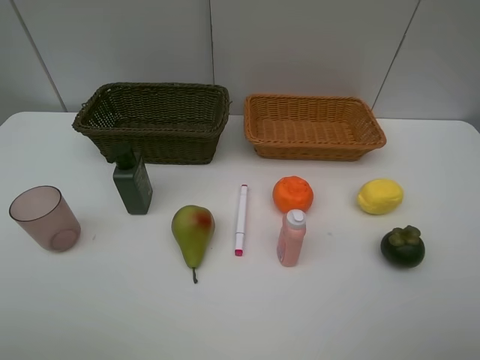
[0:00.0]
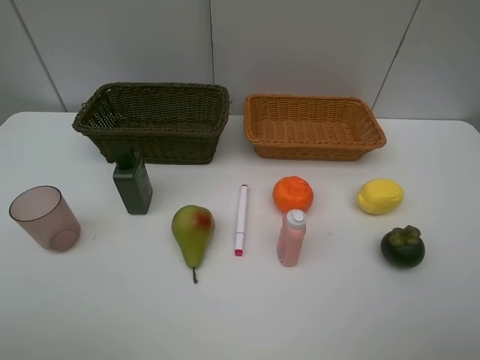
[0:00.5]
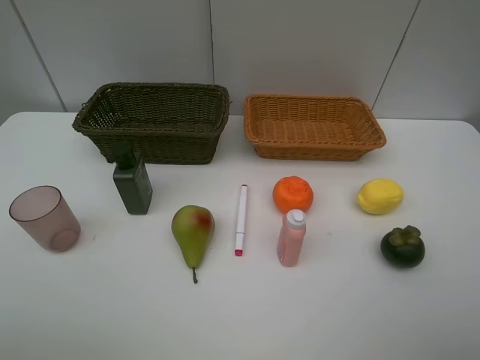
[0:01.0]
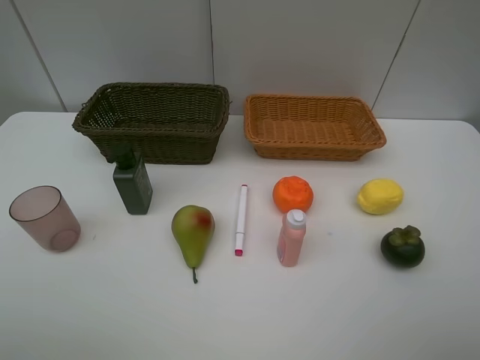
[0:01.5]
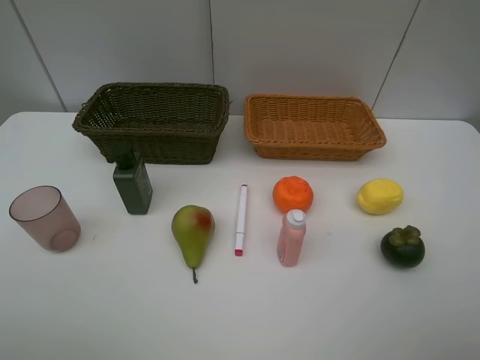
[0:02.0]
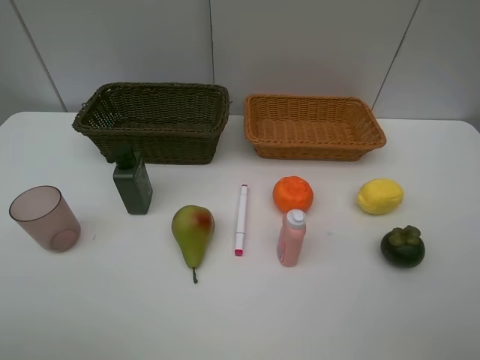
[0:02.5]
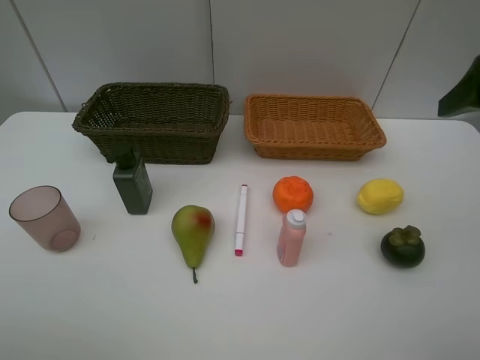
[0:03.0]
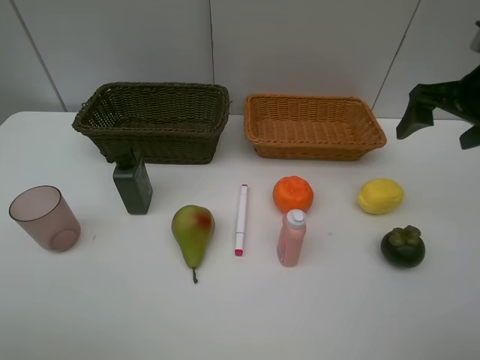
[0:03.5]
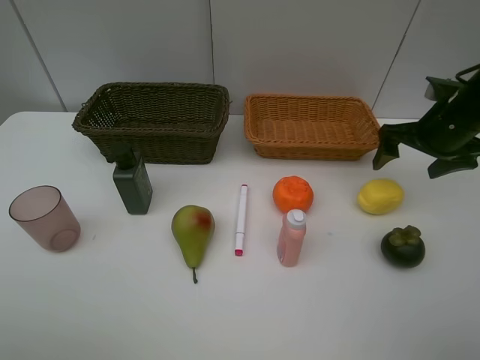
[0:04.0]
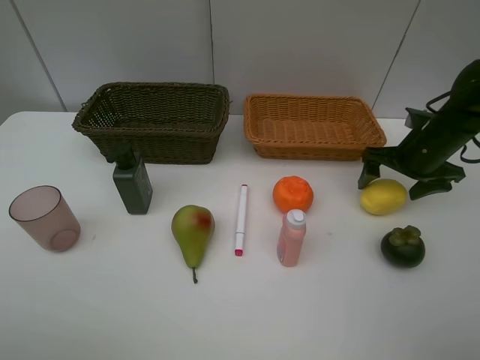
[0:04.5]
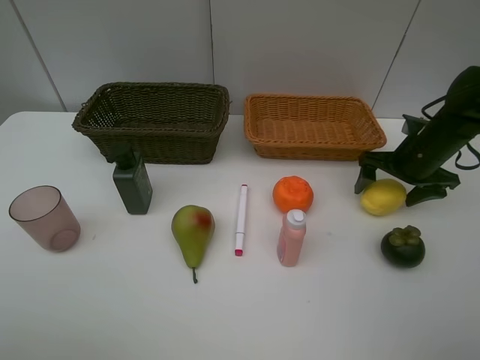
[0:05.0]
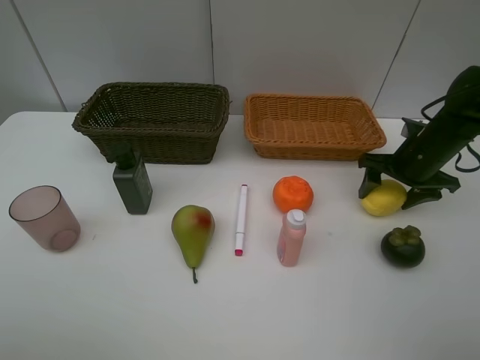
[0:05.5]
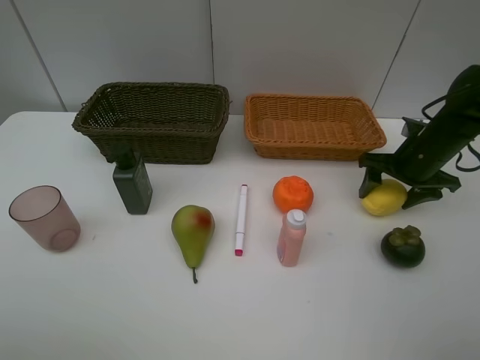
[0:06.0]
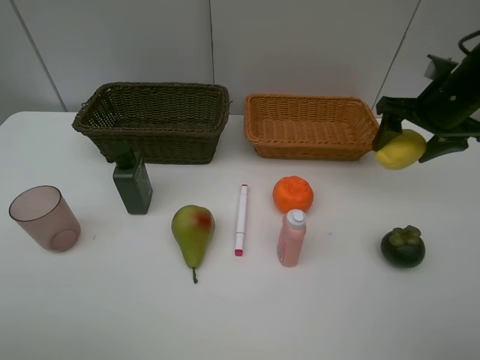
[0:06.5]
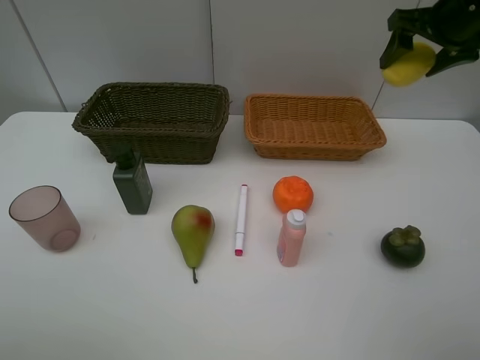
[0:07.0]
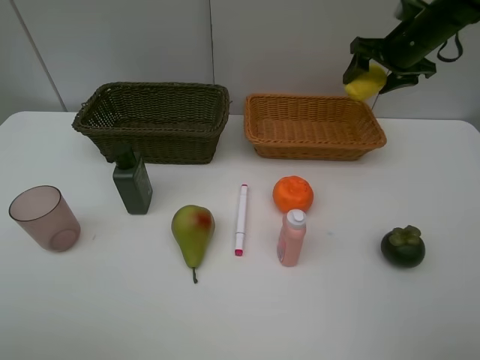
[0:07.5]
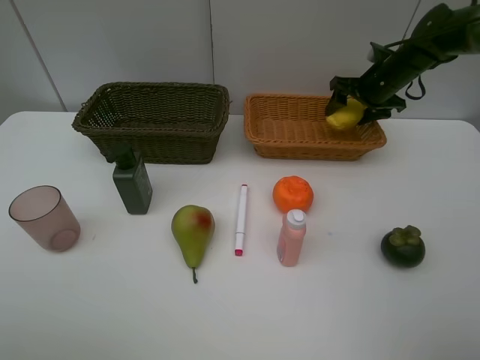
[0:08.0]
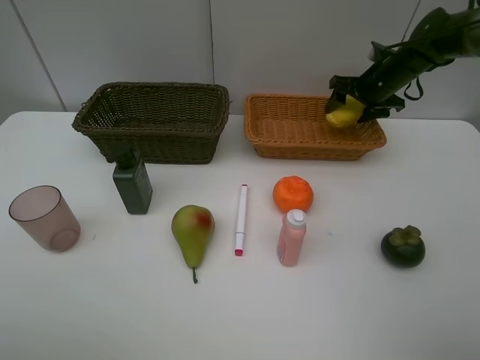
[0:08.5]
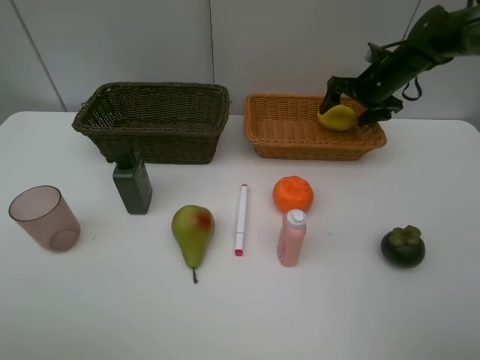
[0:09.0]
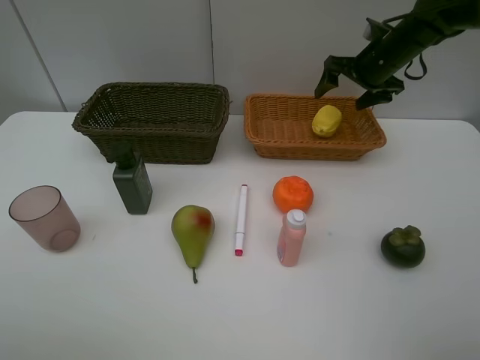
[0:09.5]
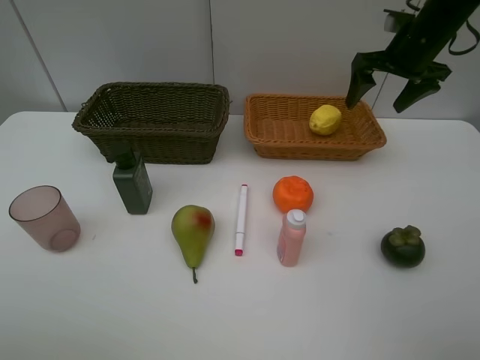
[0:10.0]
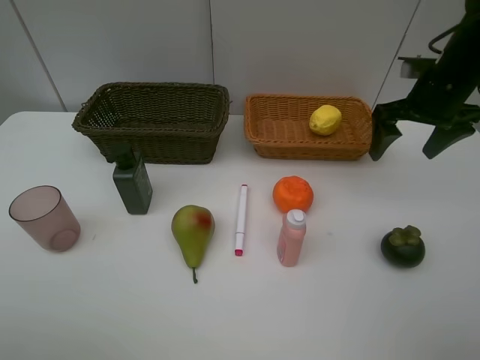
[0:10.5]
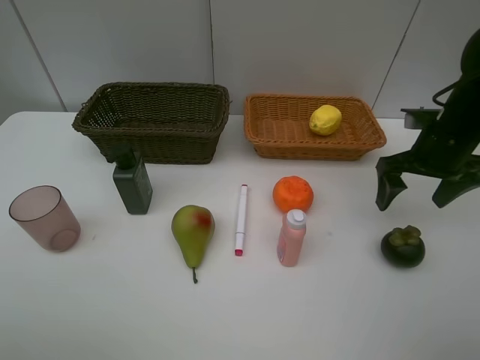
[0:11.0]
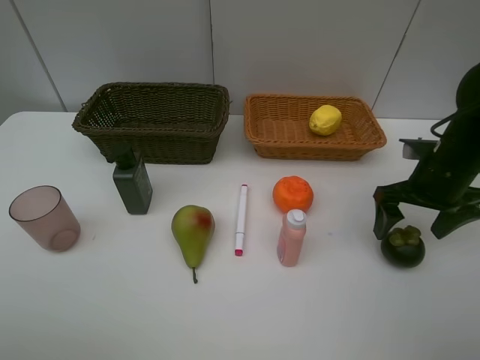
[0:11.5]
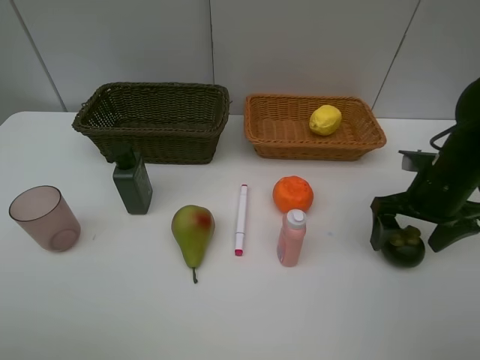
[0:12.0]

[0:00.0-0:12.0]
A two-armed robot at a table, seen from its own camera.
Task of the whole recording: Place multiple objects separately in different baskets.
Step, 0:00.0 to 0:06.0: Pick up the lemon with right gripper.
Step, 0:06.5 to 0:09.0: Place the lemon in the light basket with right gripper.
0:00.0 to 0:02.0: Neither gripper changes place.
0:02.0 to 0:04.0: The right gripper shifts some 35 cm forward.
0:04.0 to 0:06.0: The right gripper moves downward, some 5 cm.
0:06.0 to 0:08.0: The right gripper heads forward, covering roughly 15 cm, and goes upward and returns, about 20 cm each way.
0:08.0 to 0:10.0: The right gripper goes roughly 10 cm upward and backward.
0:10.0 to 0:12.0: The right gripper shifts some 20 cm backward and downward.

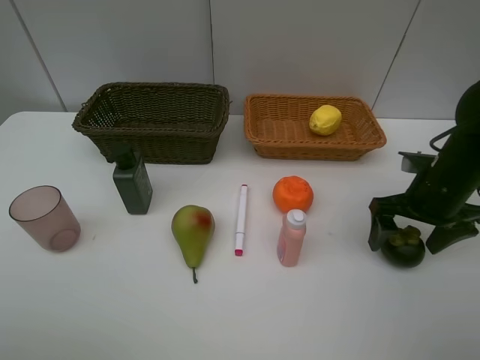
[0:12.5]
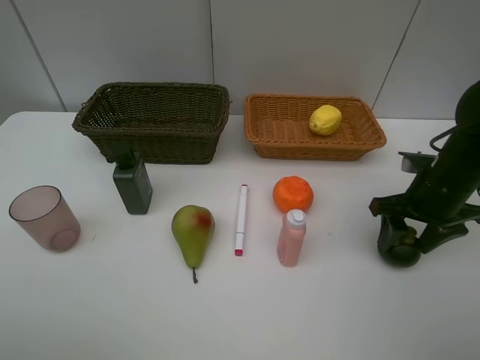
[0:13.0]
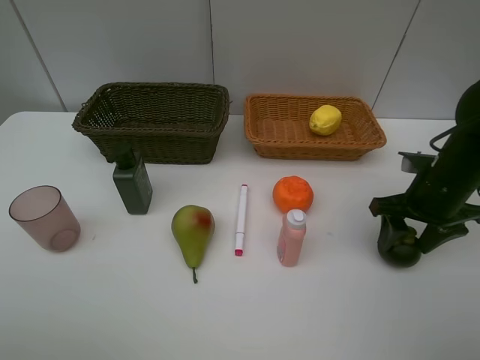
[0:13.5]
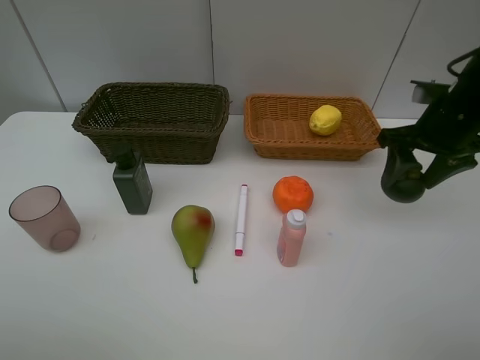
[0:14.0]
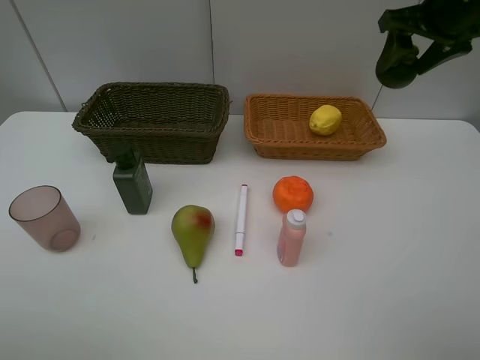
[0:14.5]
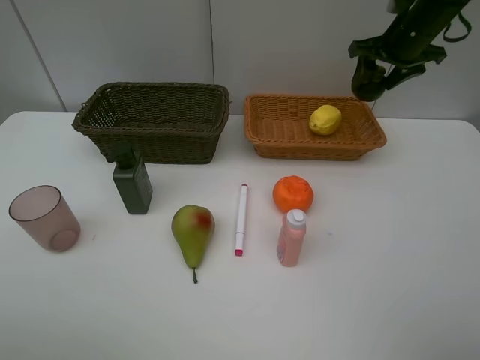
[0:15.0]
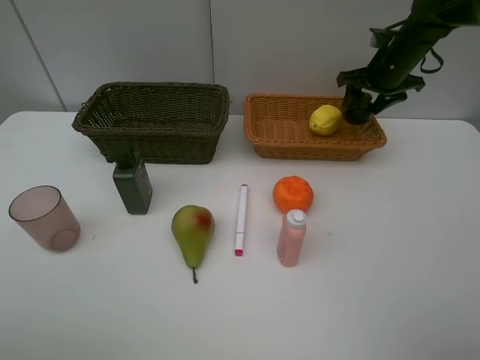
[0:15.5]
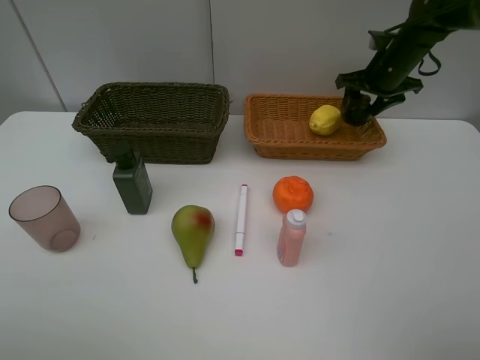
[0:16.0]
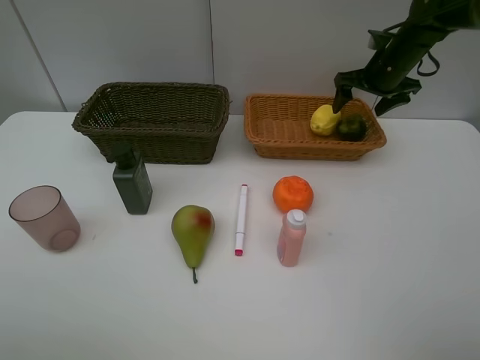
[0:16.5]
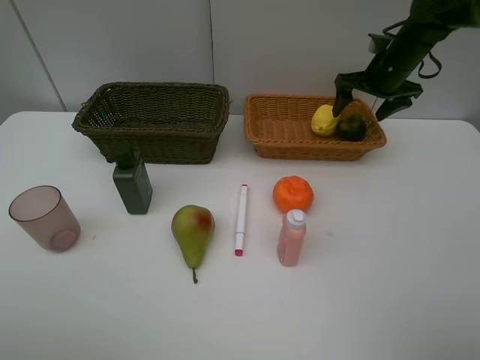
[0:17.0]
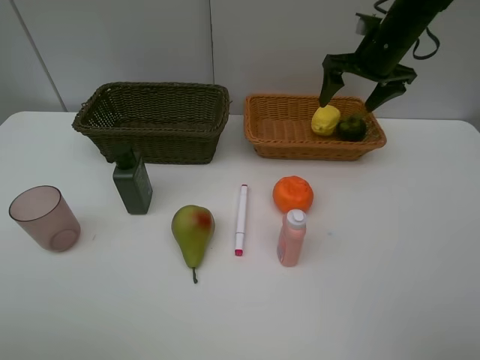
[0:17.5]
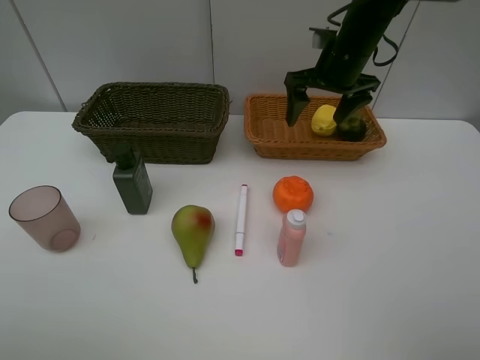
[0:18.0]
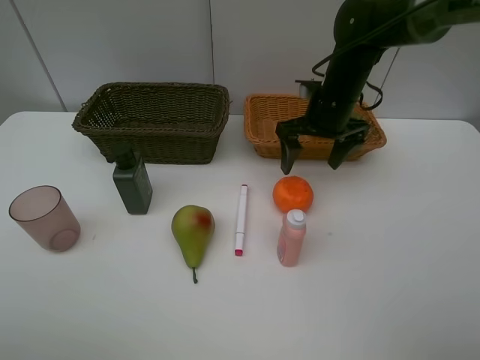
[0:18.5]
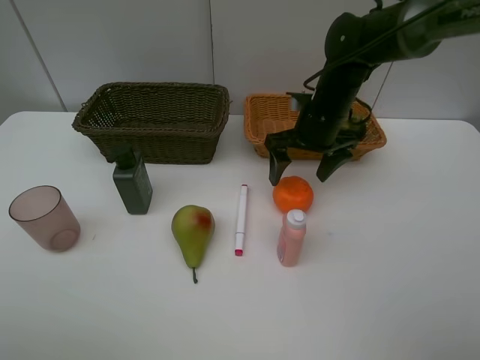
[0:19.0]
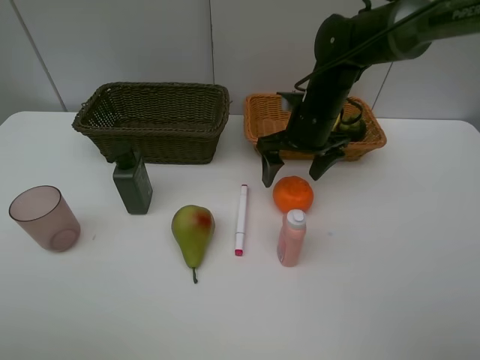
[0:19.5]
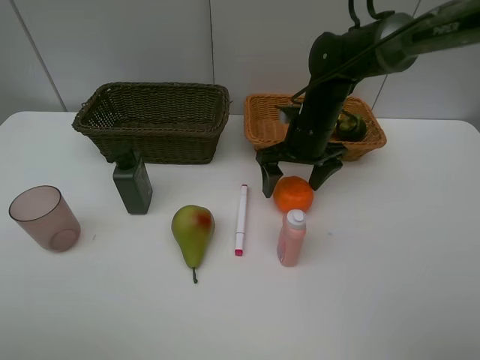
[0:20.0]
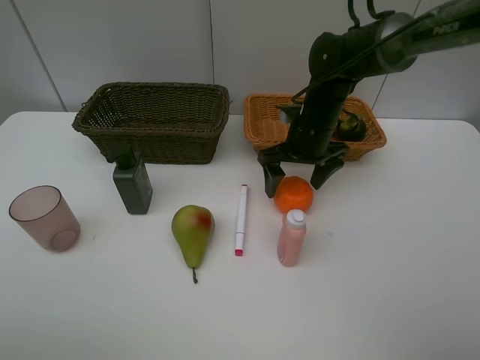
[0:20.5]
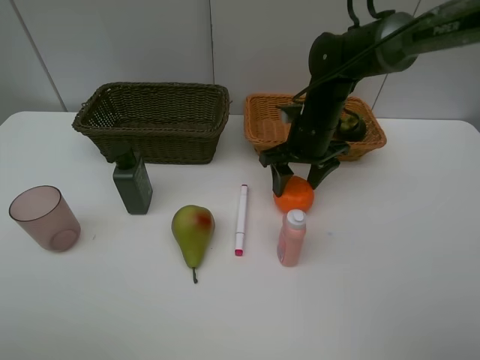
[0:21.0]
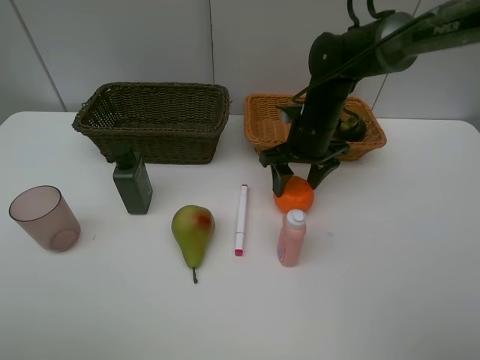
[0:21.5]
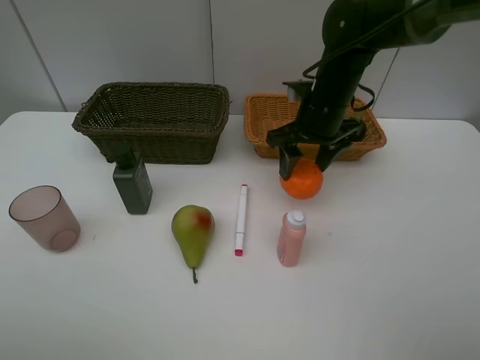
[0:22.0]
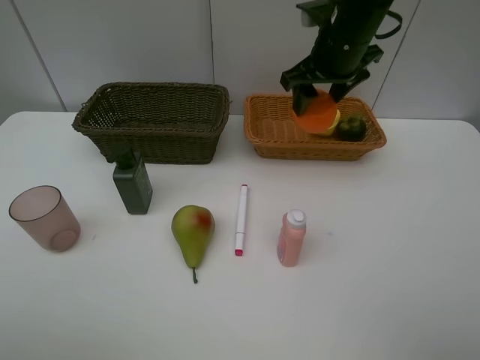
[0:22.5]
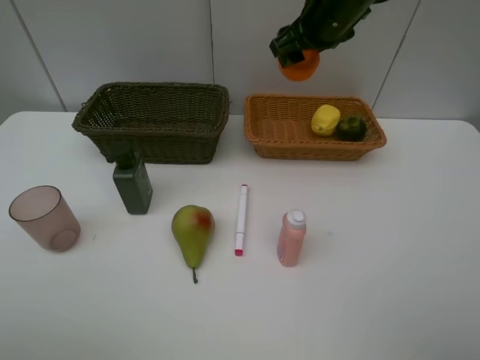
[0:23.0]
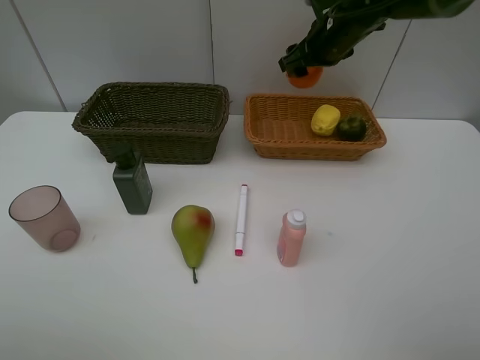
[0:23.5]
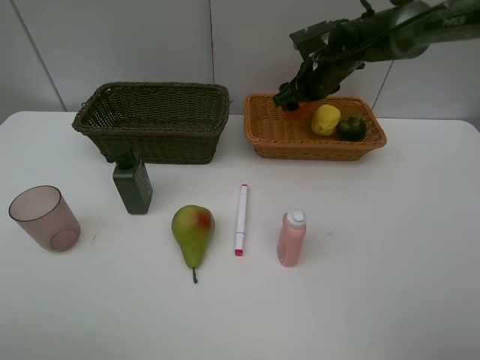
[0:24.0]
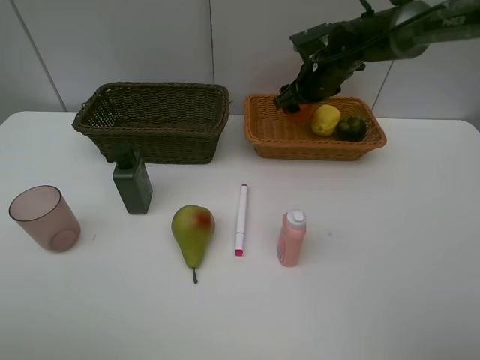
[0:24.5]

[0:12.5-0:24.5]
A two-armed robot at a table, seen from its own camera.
Task of the whole recording: Place multiple objects separately in different baskets.
Step, 0:14.0 to 0:16.5: Place the mangosteen in the light basket with right gripper.
Step, 0:17.0 to 0:21.5: Pick up the orange with right gripper.
0:12.5 to 0:14.5: The right gripper is displaced upward and forward by roughly 25 cm, and closes up.
0:14.5 to 0:16.5: The right gripper is displaced downward and forward by some 15 cm, and opens up.
0:16.5 to 0:18.5: The right gripper is displaced to the left and backward by about 15 cm.
0:18.5 to 0:20.5: The grippers make only small movements.
0:20.5 to 0:22.5: The right gripper shifts some 15 cm upward.
0:22.5 to 0:24.5: The right gripper shifts approximately 15 cm downward and forward.

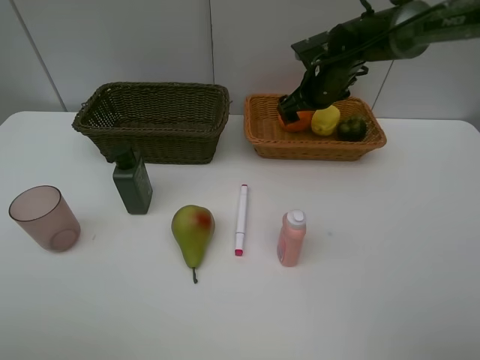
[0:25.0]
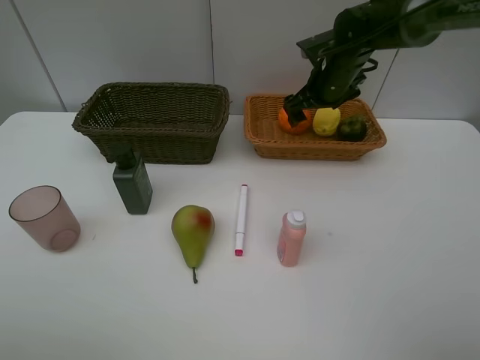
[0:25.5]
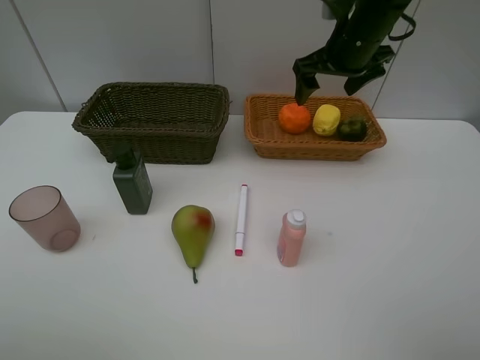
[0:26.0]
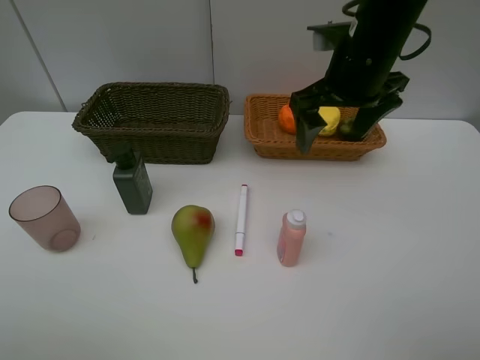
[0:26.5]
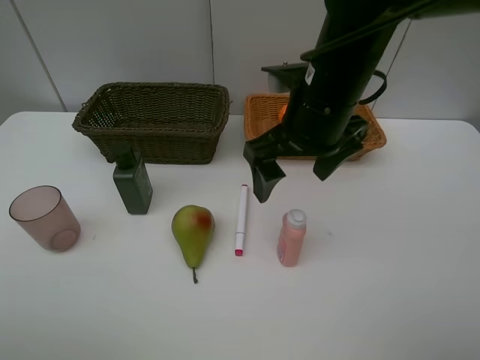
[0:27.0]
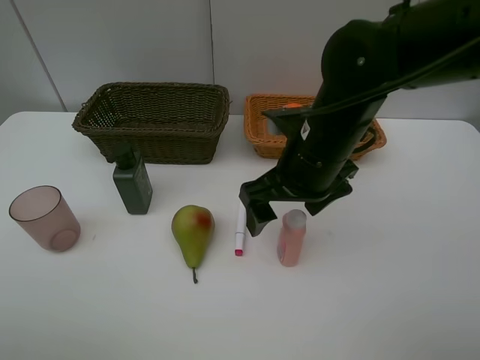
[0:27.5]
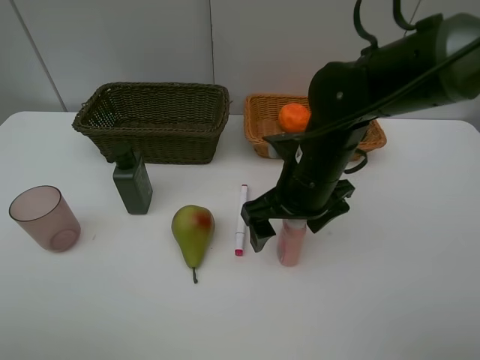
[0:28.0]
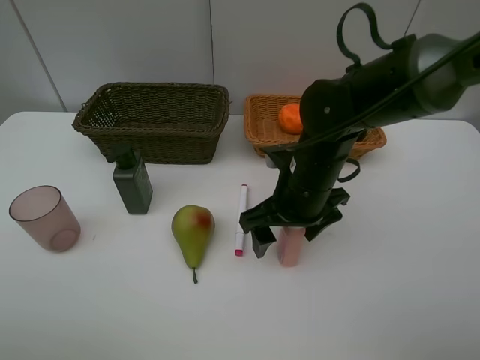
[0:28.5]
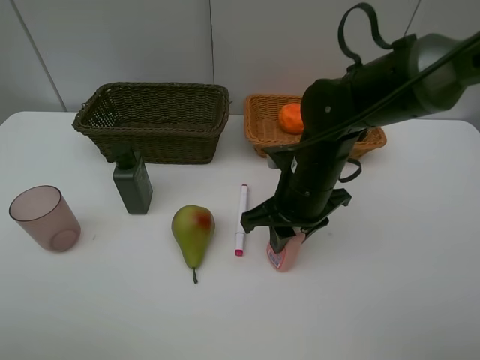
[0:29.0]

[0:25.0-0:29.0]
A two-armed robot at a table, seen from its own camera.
Task of the whole recording: Place multiple objects separately in different baskets.
0:25.0 to 0:27.0: The right gripper heads backward, covering roughly 20 cm.
0:27.0 to 0:29.0: The right gripper is displaced downward by some 10 cm, and closes its fingers.
